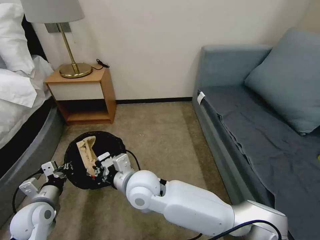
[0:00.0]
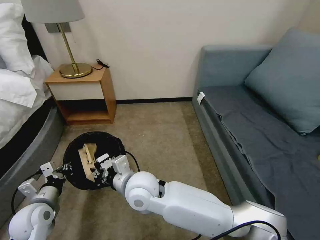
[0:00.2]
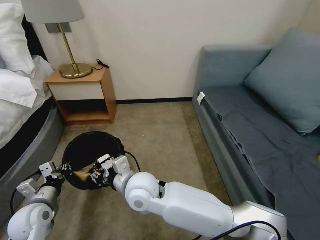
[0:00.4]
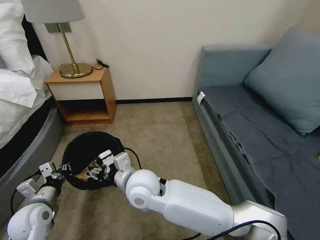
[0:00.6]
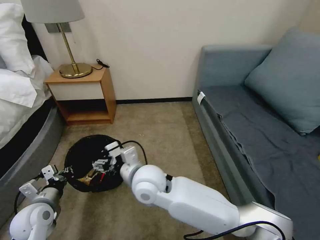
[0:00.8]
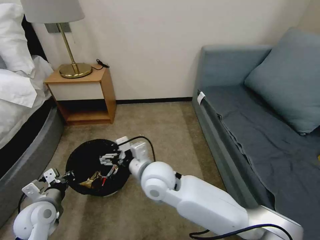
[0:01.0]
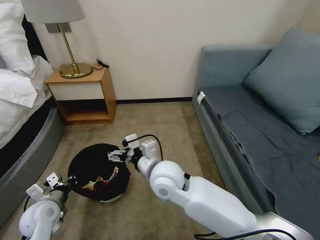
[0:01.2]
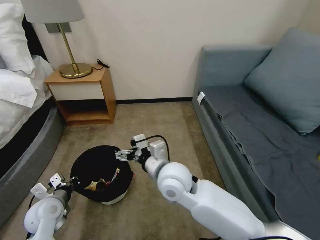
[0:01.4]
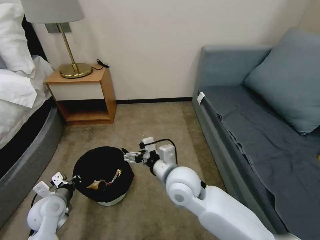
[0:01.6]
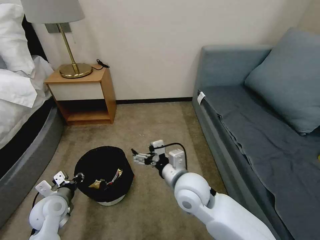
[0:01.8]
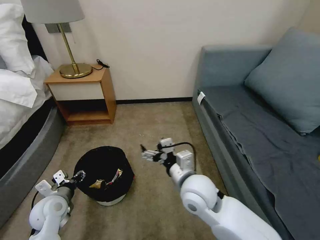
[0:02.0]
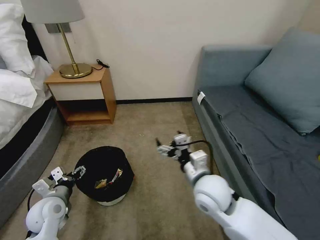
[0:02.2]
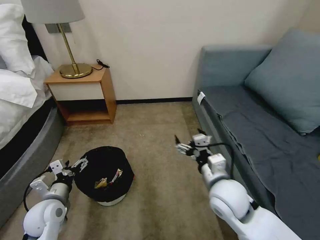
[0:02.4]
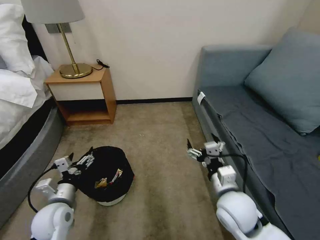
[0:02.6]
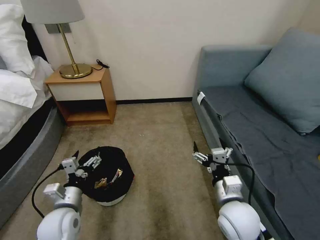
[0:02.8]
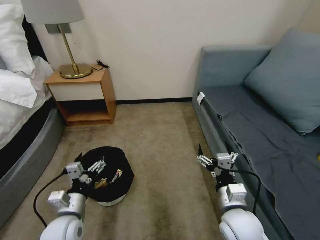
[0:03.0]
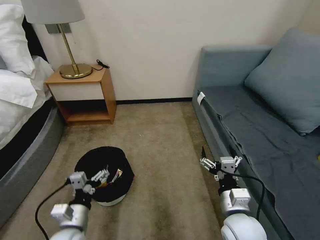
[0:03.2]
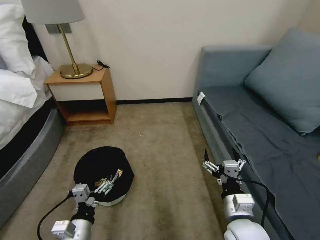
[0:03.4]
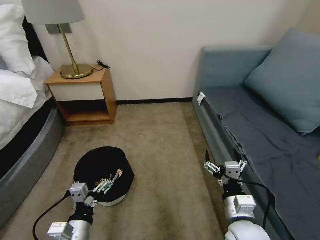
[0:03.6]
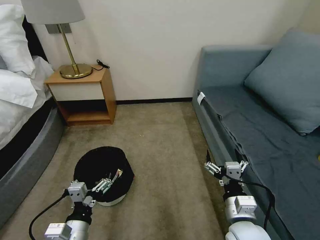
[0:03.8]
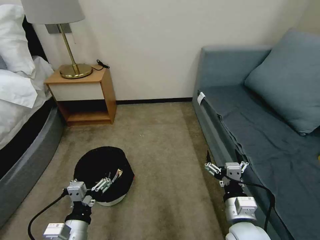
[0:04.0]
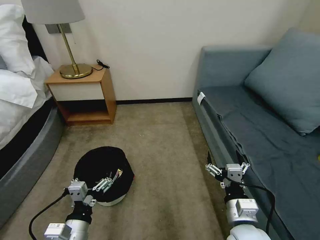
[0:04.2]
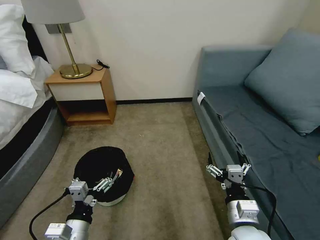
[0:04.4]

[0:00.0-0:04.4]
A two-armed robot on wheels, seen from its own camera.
Task of the whole recording: Pick up the trash bin, then pick up the garbage on the floor and place it into the trash bin.
0:00.0 to 0:01.4: The right gripper moves to the right, approximately 10 cm, and opens up.
0:01.4 to 0:03.0: The left gripper goes some 10 cm to the right and backward, and opens up. The right gripper travels to the right, backward and downward by some 20 cm.
0:03.0 to 0:04.4: The left gripper shifts approximately 10 cm backward.

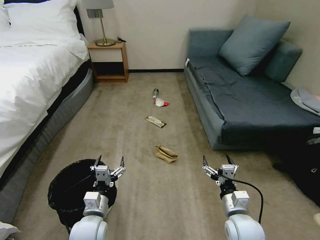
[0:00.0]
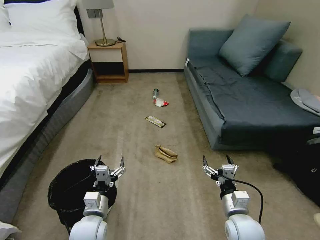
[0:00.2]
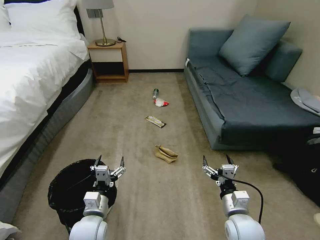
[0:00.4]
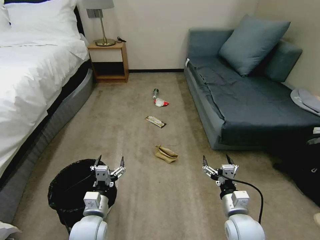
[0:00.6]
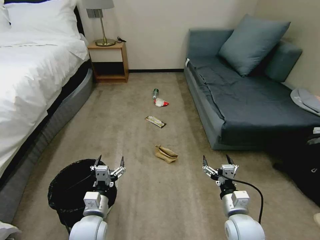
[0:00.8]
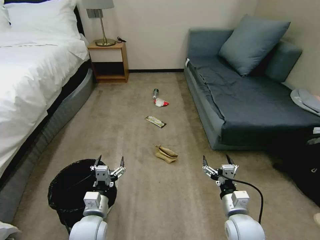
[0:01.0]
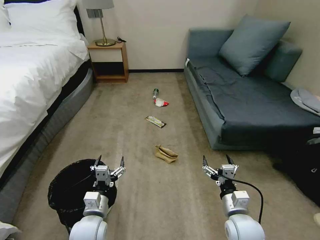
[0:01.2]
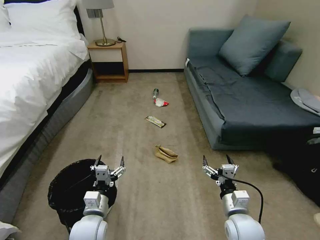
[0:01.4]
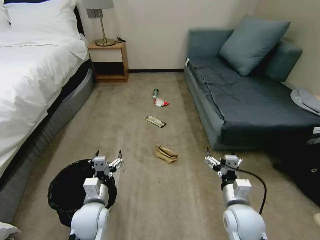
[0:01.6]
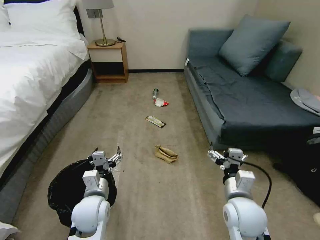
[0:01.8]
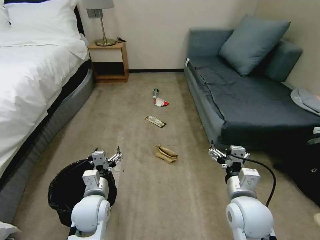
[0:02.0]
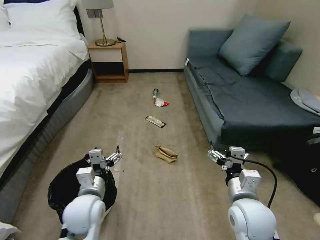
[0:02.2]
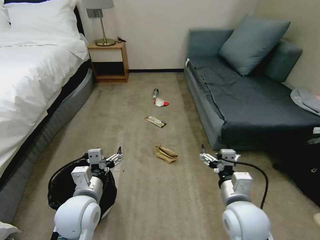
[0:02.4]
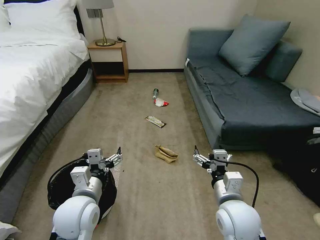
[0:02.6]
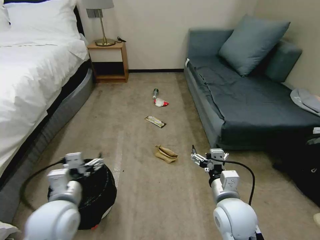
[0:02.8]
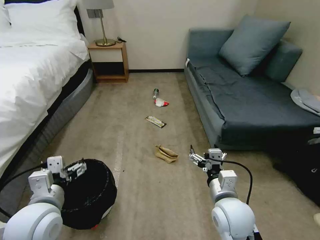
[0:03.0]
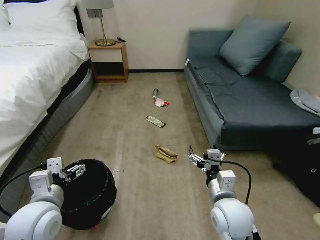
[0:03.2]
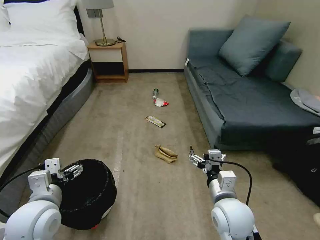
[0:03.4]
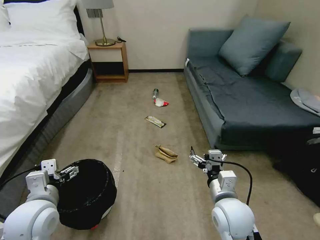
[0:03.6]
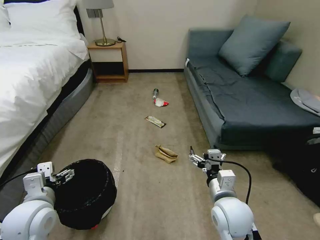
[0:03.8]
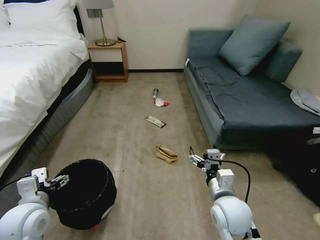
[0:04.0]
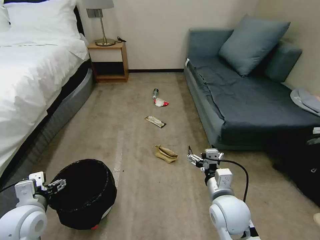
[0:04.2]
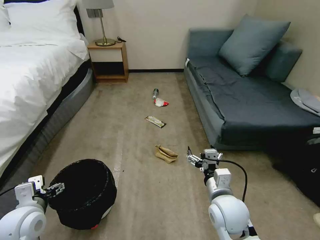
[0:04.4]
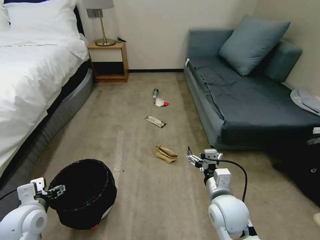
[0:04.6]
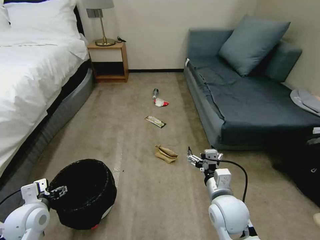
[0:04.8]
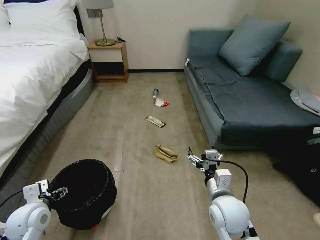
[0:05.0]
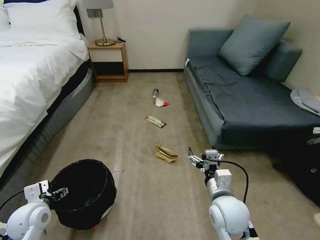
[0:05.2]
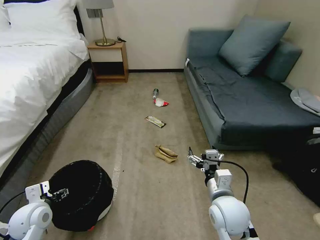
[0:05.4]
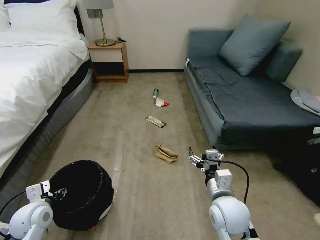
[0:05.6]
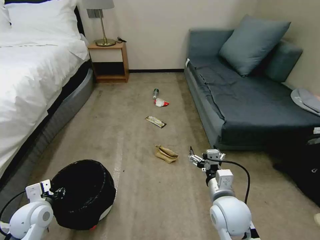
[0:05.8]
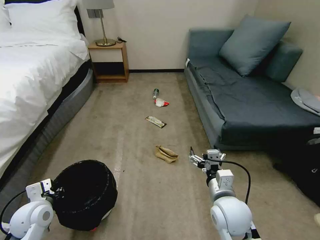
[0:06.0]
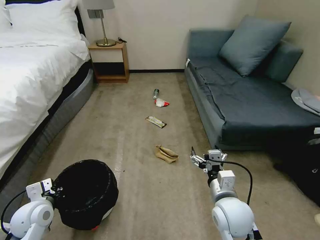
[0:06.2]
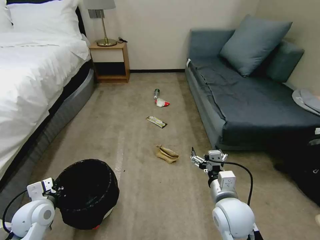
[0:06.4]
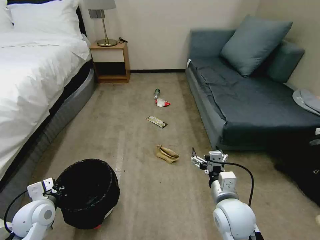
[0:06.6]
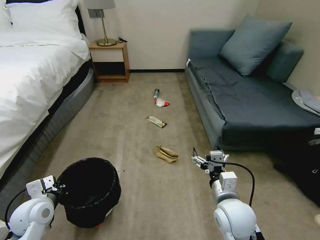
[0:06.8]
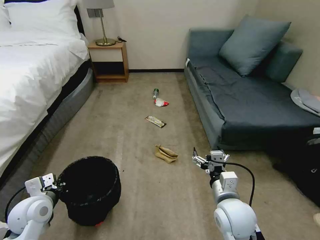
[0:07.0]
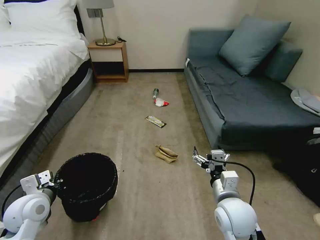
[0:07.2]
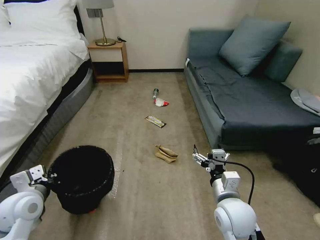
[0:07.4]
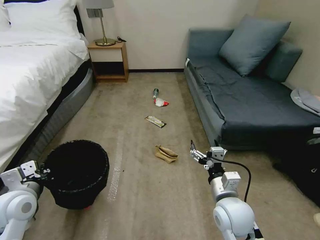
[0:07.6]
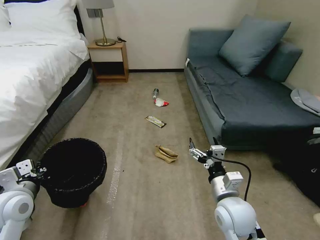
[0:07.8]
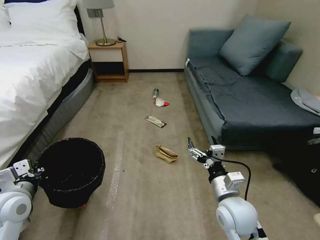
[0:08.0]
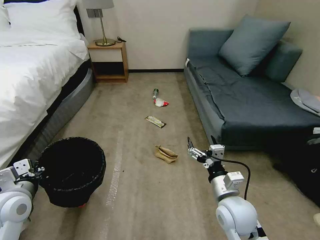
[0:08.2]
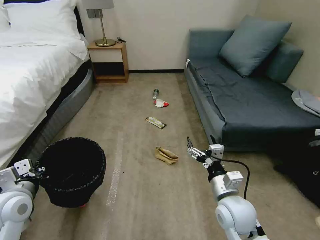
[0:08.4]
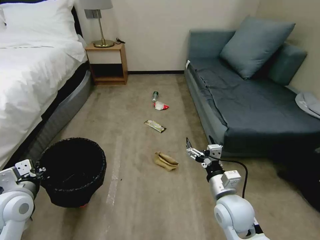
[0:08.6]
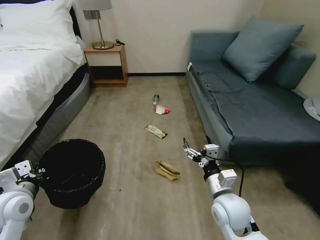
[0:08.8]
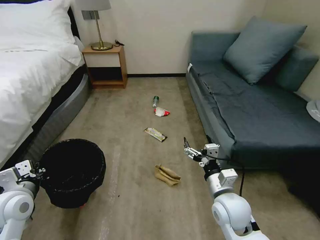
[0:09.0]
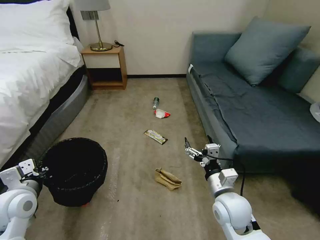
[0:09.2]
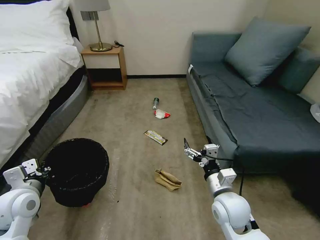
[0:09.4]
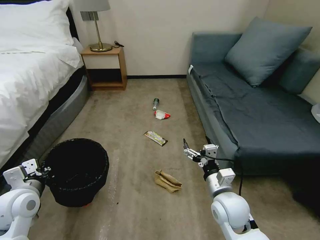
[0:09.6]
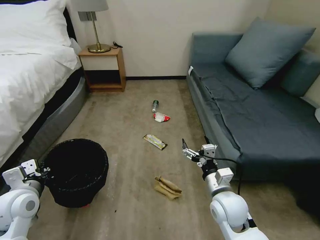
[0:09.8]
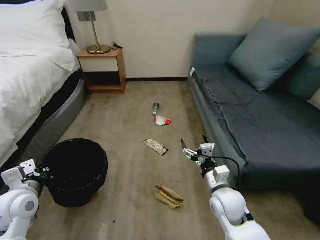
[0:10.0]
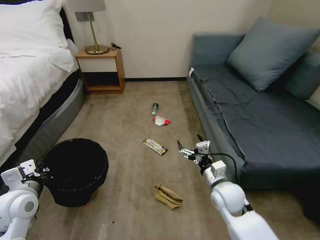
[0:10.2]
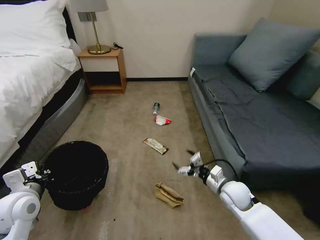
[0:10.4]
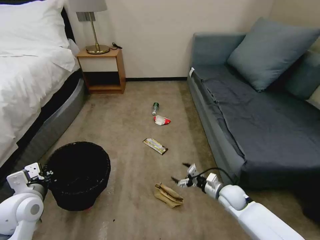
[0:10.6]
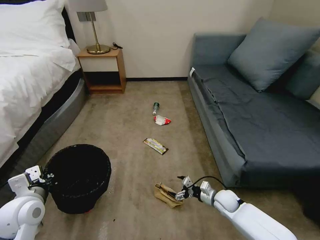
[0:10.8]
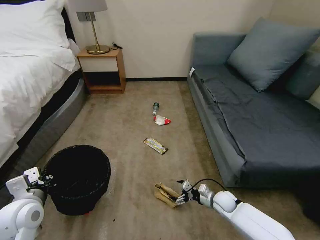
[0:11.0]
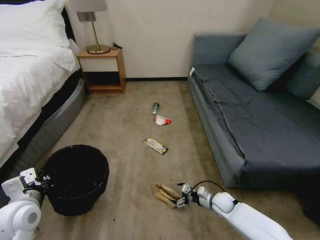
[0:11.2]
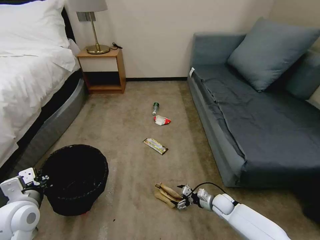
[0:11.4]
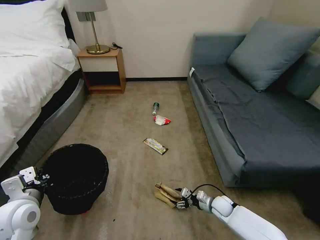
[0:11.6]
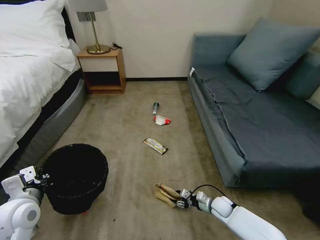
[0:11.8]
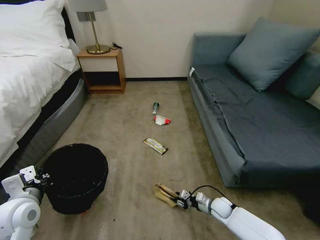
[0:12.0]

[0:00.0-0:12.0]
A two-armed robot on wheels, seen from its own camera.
Task of the whole recording: Pick up the trash bin, then pick up the garbage on the floor and place it into the trash bin.
0:01.6 to 0:03.0: The right gripper travels upward by roughly 5 cm. The left gripper moves upward and to the left, some 15 cm.
0:03.0 to 0:04.4: The left gripper heads to the left and downward, covering roughly 10 cm.
0:04.4 to 0:06.0: The left gripper heads downward, covering approximately 5 cm, and closes its fingers.
0:06.0 to 0:07.6: The left gripper shifts some 10 cm upward.
0:09.0 to 0:10.4: The right gripper moves downward, forward and to the right, some 15 cm.
0:10.4 to 0:12.0: The right gripper shifts approximately 20 cm downward, and closes up.

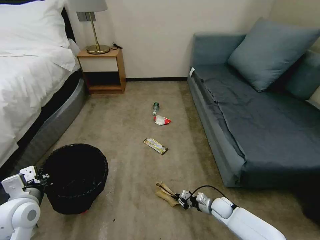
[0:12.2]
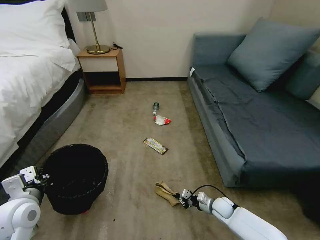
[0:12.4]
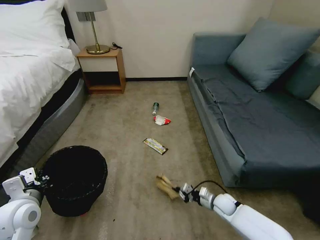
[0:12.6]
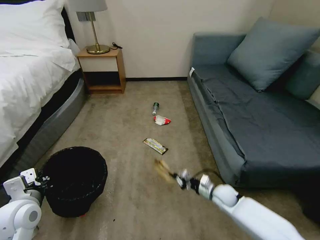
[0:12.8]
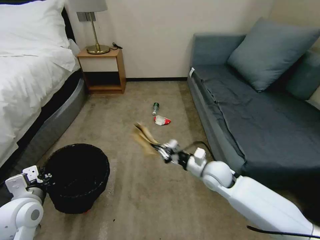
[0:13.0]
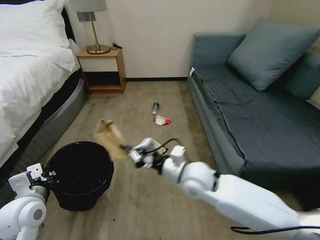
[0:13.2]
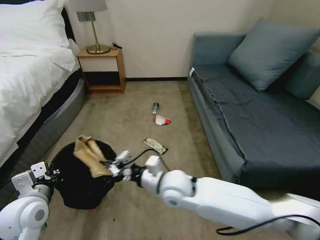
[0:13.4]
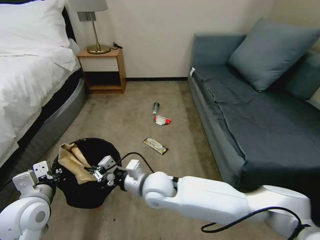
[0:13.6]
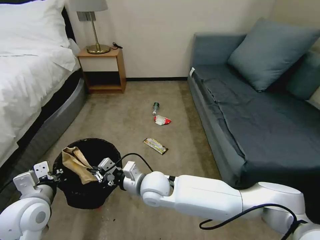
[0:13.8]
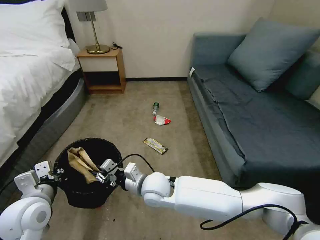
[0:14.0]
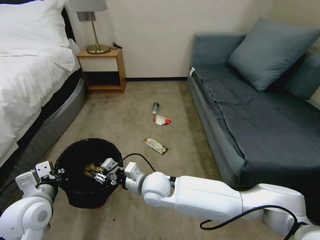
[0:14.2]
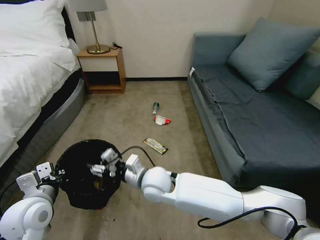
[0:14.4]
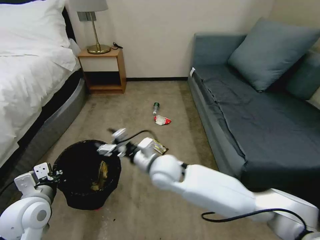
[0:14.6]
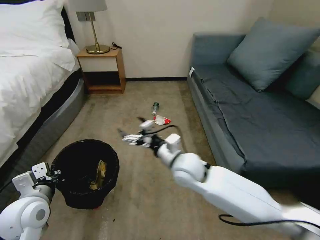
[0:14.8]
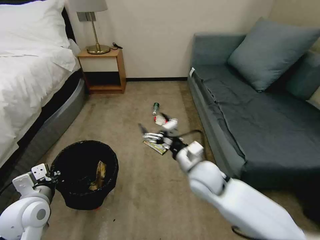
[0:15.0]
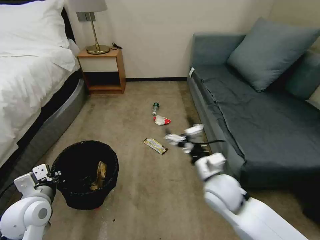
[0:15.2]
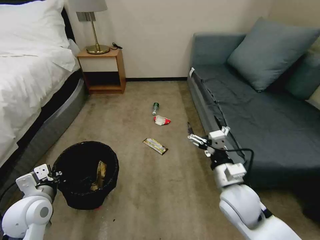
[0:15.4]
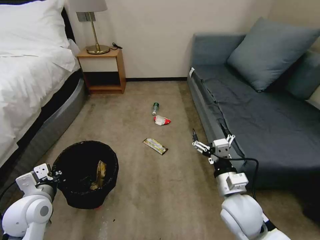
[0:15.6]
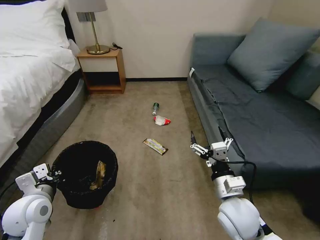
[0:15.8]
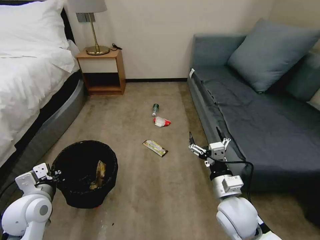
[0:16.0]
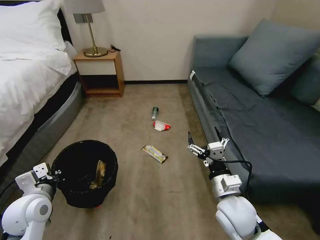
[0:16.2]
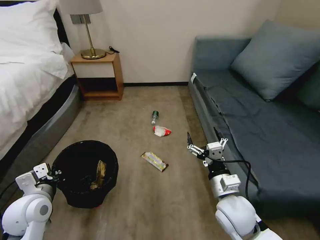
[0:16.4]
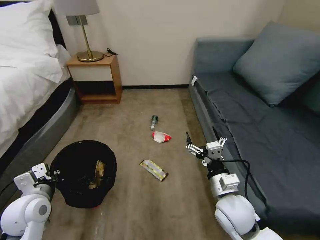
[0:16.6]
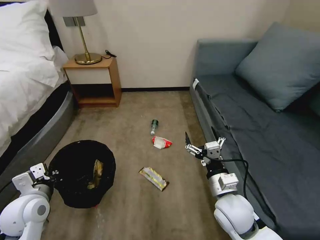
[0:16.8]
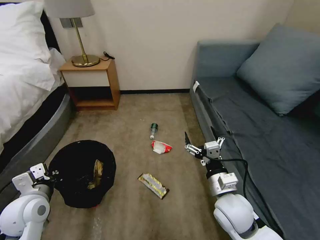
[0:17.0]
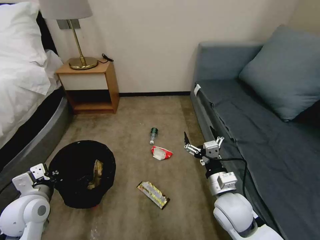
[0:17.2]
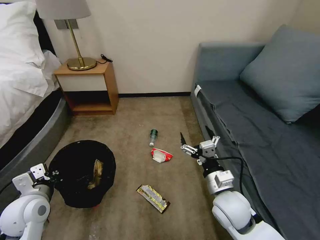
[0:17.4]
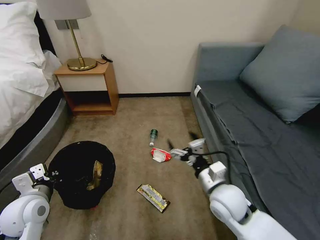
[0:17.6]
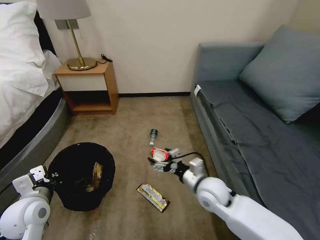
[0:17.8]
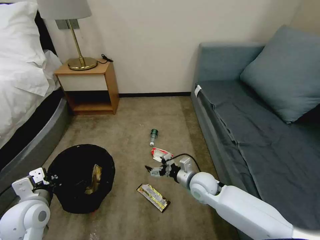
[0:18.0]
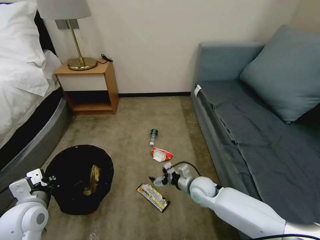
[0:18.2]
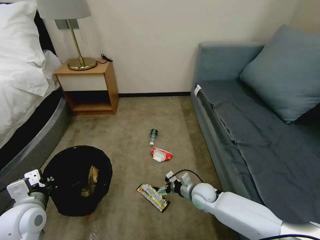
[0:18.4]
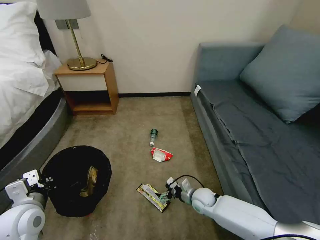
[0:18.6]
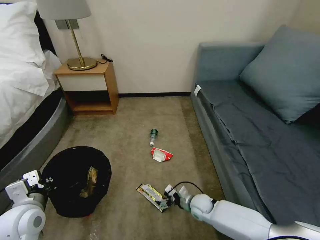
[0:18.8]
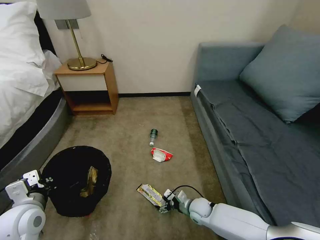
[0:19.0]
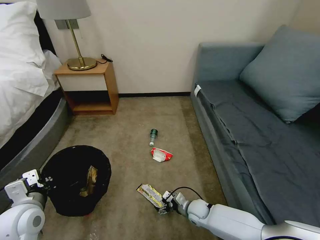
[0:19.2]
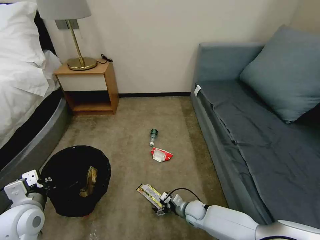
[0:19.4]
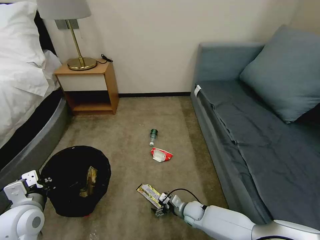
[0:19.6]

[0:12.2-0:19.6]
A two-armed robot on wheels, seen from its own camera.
Task of the whole recording: Pick up the trash bin, then pick up the garbage on the floor and place it into the trash bin.
0:12.2 to 0:13.6: The right gripper shifts roughly 40 cm upward and to the left.
0:13.6 to 0:15.2: The right gripper moves to the right, roughly 15 cm, and opens its fingers.
0:15.2 to 0:16.6: The right gripper ends up some 5 cm from where it was.
0:16.6 to 0:18.2: The right gripper is displaced downward and forward by some 15 cm.
0:18.2 to 0:19.6: The right gripper moves downward, approximately 15 cm.
